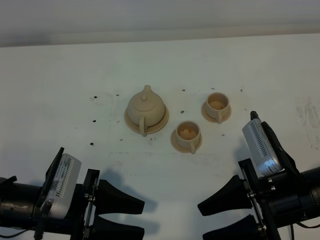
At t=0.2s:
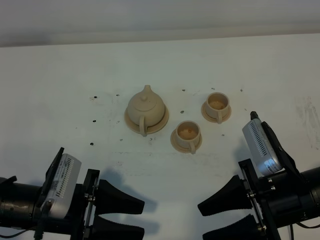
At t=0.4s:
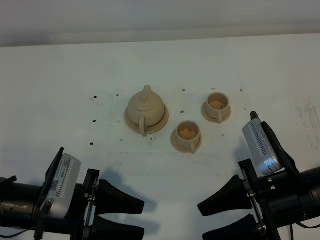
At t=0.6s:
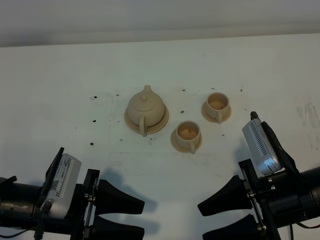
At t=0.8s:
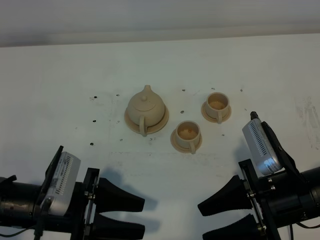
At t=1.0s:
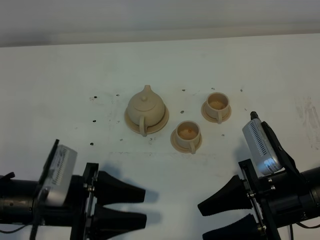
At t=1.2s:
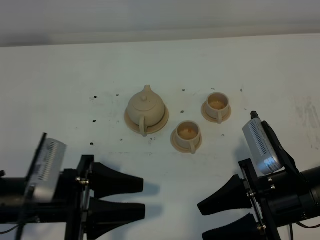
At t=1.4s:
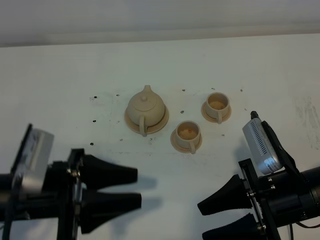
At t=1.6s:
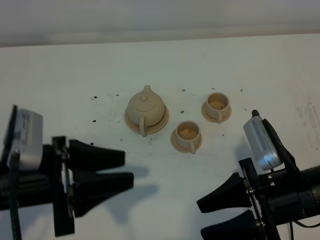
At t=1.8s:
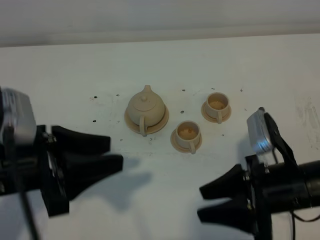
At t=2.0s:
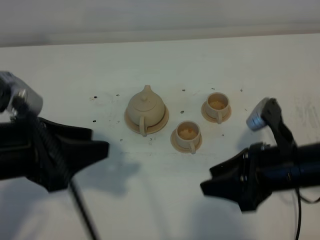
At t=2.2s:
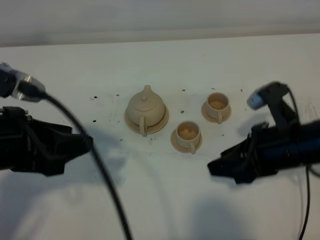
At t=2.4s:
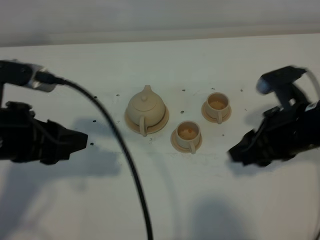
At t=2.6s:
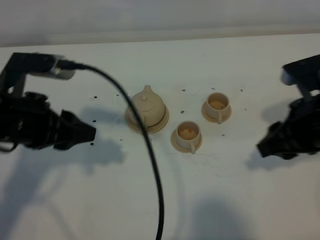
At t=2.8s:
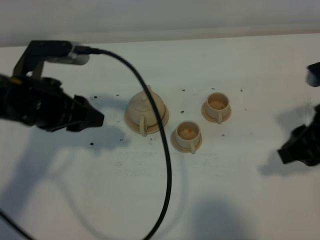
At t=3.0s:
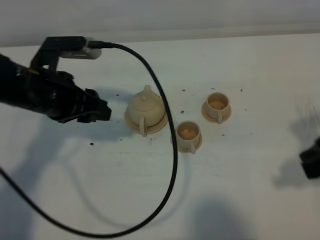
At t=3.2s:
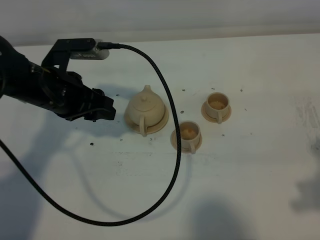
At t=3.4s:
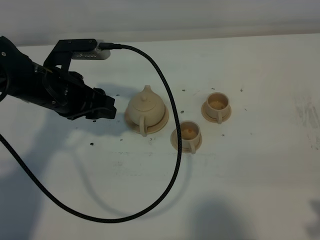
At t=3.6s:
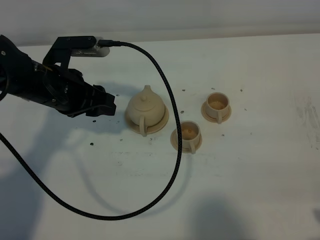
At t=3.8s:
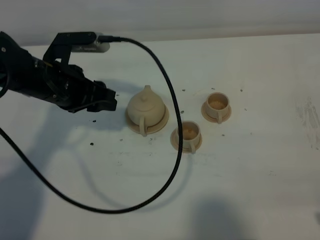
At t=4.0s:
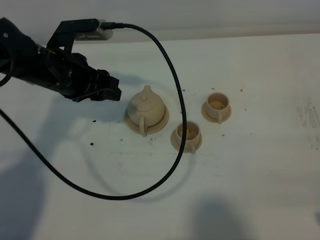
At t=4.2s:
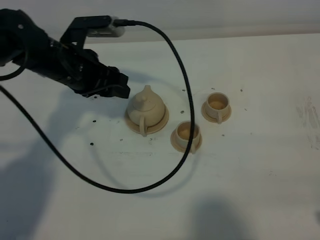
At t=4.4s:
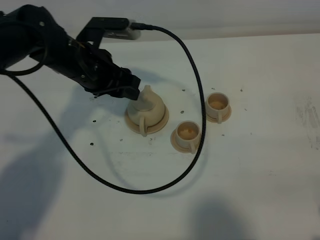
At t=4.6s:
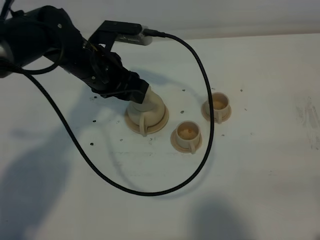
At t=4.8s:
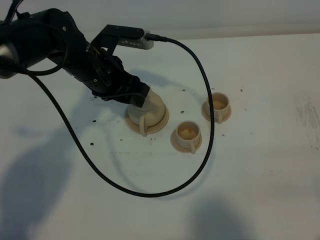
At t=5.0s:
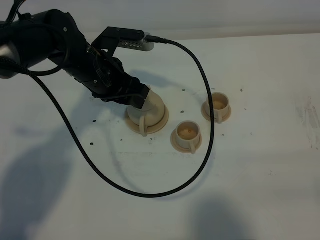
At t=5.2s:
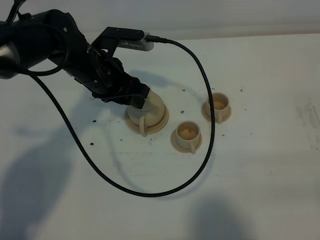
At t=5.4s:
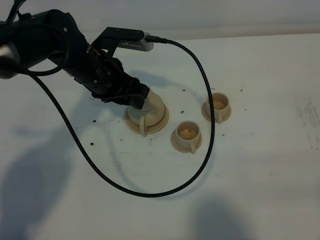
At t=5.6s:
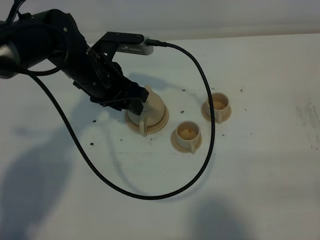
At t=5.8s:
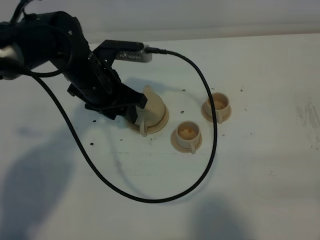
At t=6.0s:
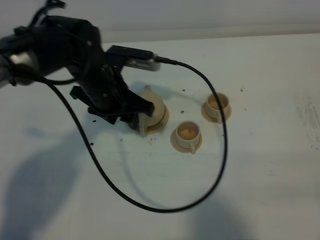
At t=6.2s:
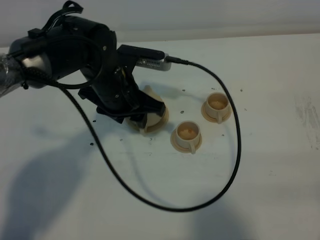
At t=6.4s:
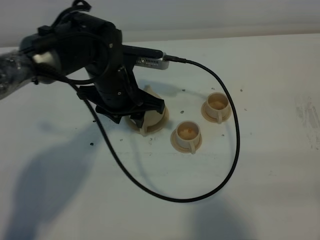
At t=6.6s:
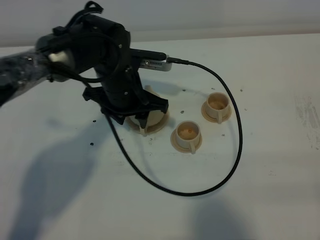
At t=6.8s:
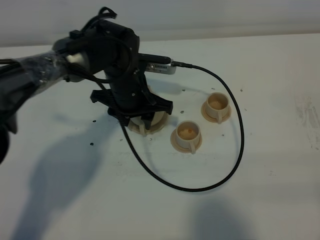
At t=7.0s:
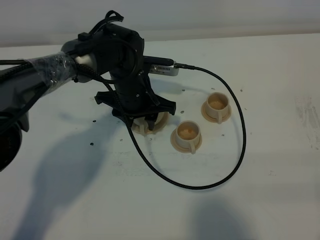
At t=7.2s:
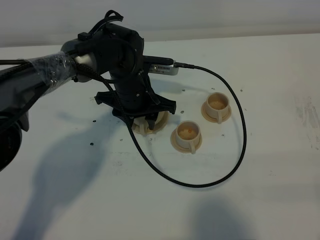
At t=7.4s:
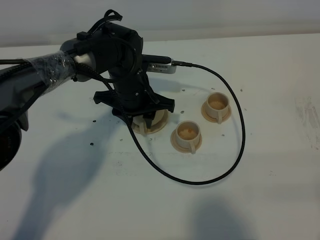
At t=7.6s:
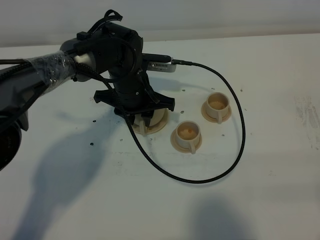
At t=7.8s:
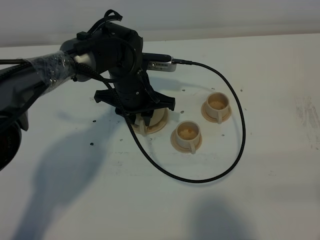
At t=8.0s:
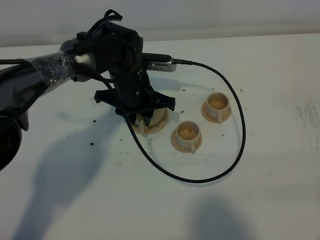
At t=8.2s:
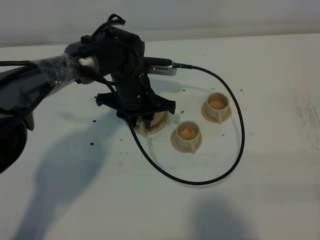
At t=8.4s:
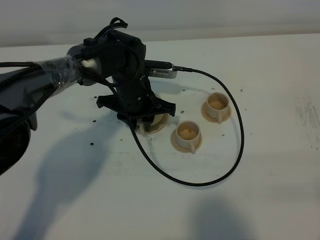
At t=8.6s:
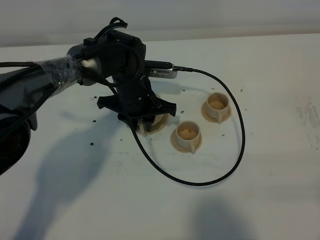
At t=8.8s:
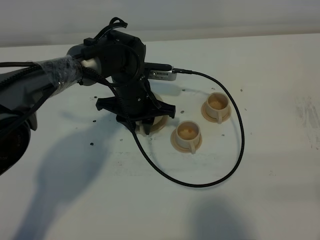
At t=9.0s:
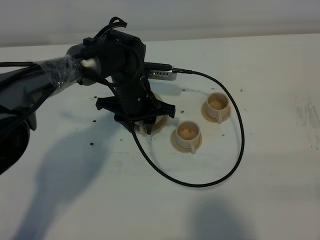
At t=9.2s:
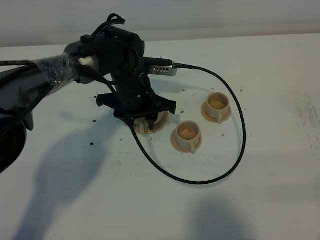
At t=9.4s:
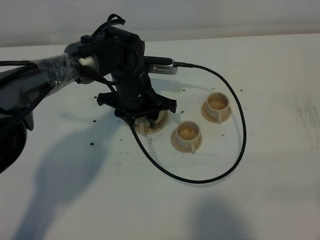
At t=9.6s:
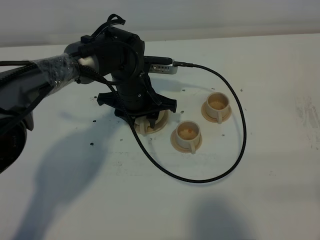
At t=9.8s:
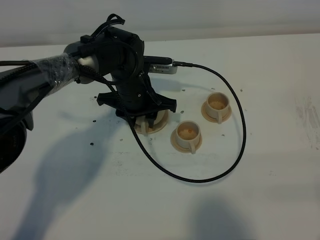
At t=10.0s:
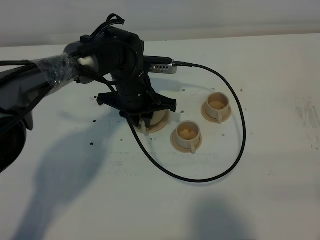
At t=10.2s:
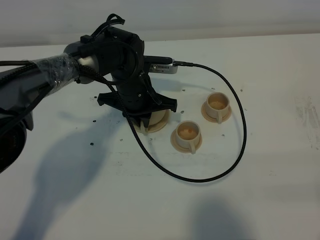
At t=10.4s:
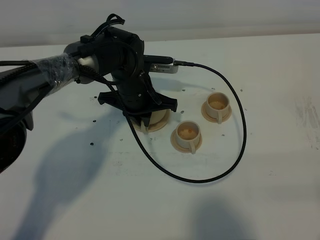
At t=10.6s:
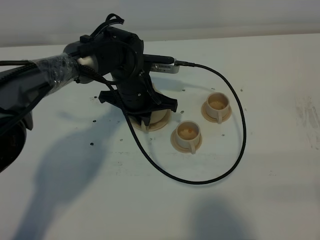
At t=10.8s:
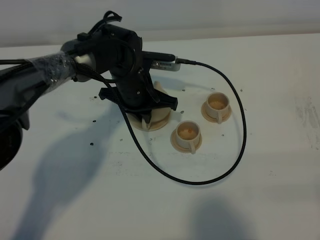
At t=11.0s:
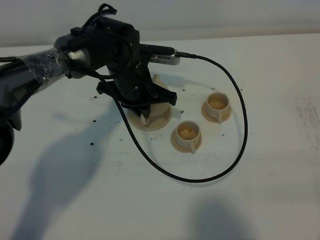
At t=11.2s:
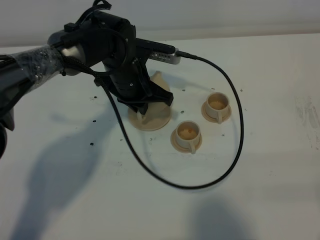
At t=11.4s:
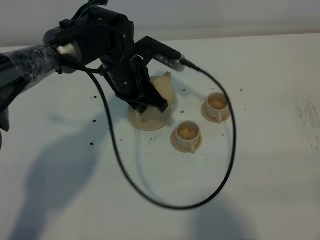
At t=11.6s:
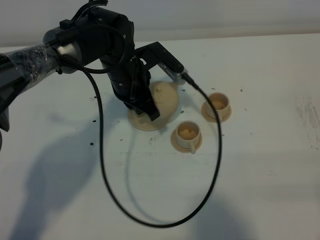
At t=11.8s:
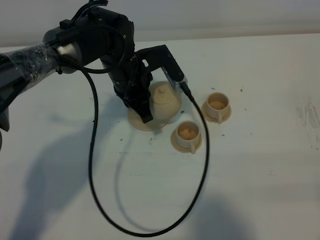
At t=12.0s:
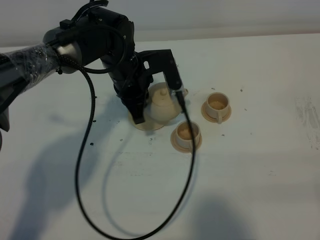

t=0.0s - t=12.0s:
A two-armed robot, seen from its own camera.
Task of the whole recording: grasp the brown teapot and pour the tea into the two brown teacups one by one, put the brown teapot back in its original place.
Step, t=0.0s - t=11.0s: Pick up the teapot with the left gripper.
t=0.0s - t=1.6s: The left gripper is displaced upward by approximately 10 cm.
t=1.6s - t=3.0s: The left gripper moves forward, roughly 15 cm. The right gripper is displaced upward and to the right by about 15 cm.
t=3.0s - t=4.4s: The left gripper shifts some 10 cm forward and to the right. The right gripper shifts roughly 10 cm backward.
t=4.4s - t=6.0s: The left gripper moves some 5 cm. Meanwhile the right gripper closes its fingers.
t=6.0s - t=7.6s: The left gripper travels downward by approximately 5 cm.
t=7.6s - t=9.0s: The grippers stay close to where they were, moving slightly.
t=9.0s - t=10.4s: The left gripper closes its fingers.

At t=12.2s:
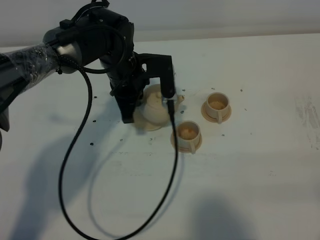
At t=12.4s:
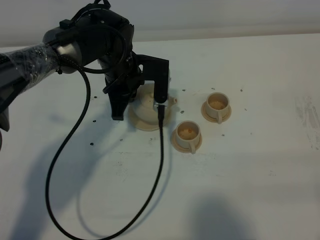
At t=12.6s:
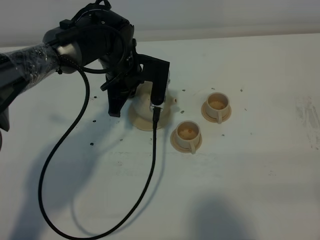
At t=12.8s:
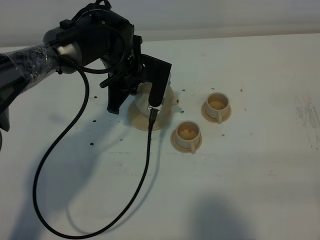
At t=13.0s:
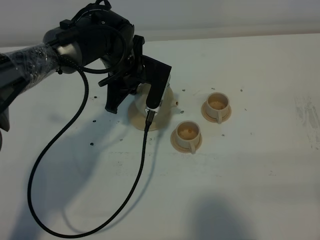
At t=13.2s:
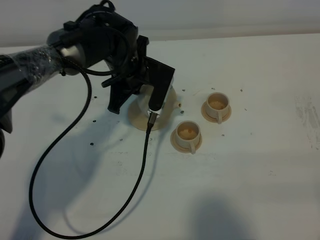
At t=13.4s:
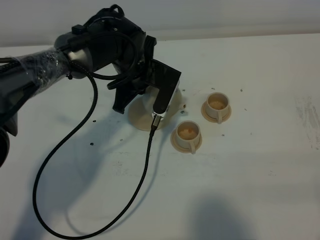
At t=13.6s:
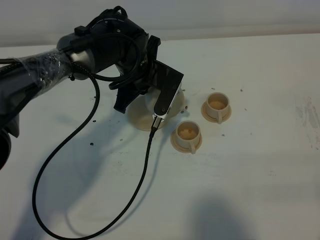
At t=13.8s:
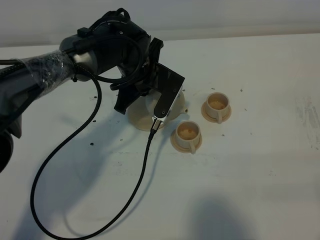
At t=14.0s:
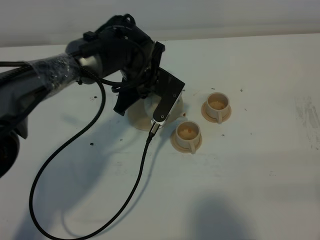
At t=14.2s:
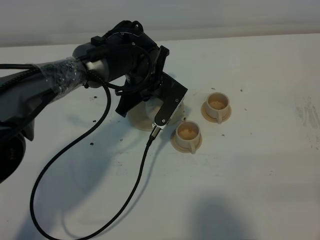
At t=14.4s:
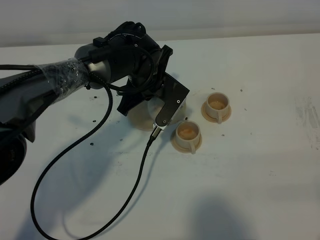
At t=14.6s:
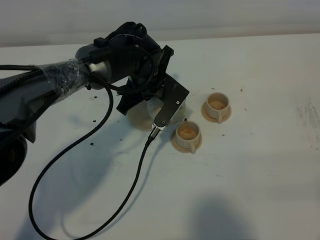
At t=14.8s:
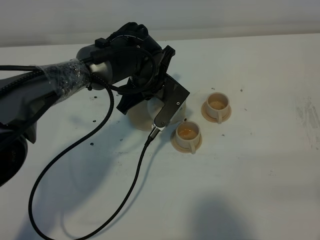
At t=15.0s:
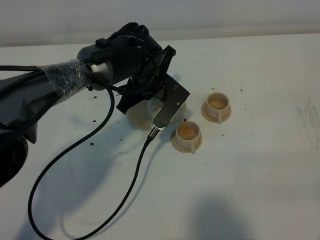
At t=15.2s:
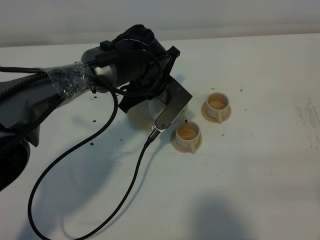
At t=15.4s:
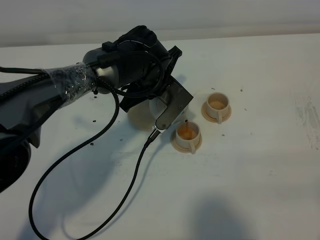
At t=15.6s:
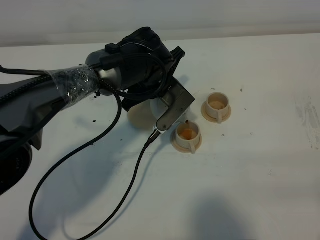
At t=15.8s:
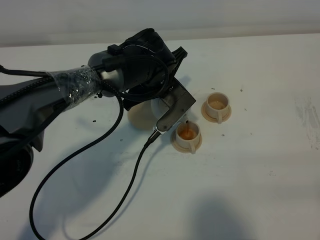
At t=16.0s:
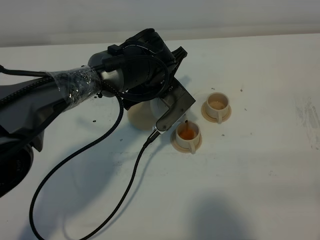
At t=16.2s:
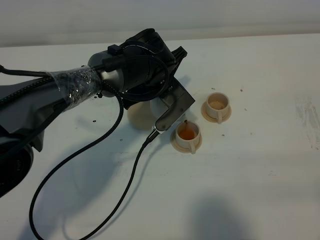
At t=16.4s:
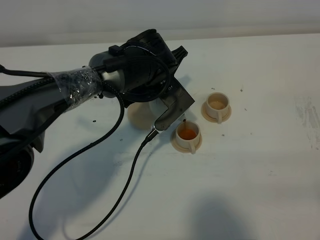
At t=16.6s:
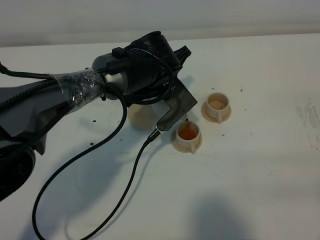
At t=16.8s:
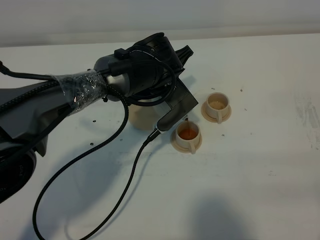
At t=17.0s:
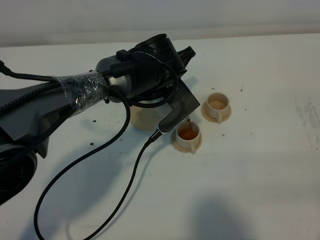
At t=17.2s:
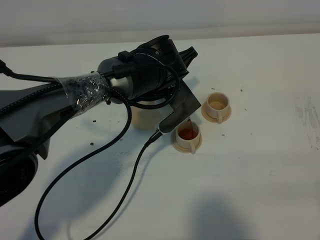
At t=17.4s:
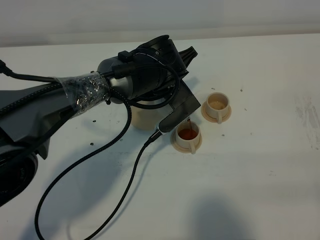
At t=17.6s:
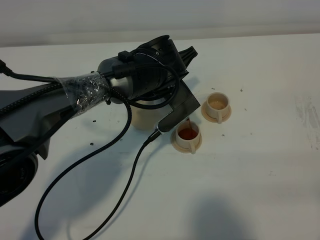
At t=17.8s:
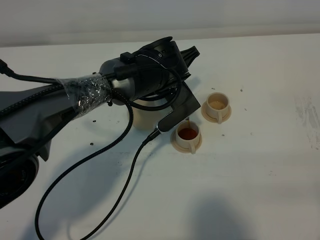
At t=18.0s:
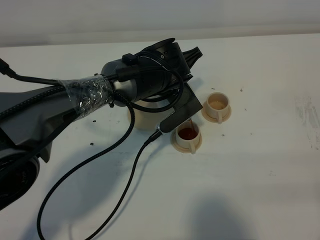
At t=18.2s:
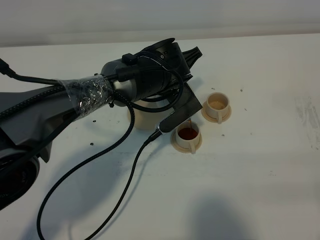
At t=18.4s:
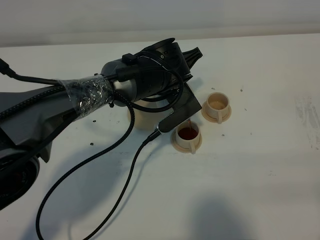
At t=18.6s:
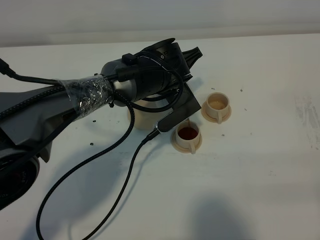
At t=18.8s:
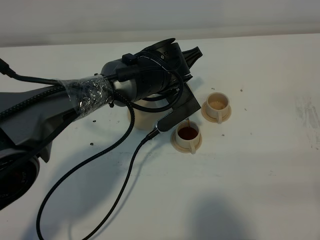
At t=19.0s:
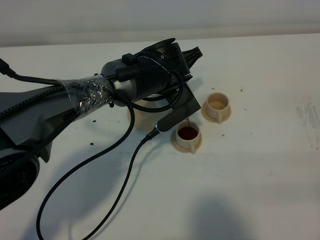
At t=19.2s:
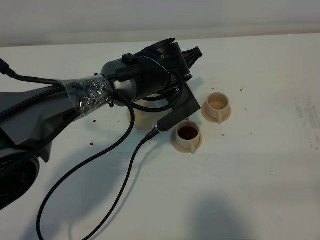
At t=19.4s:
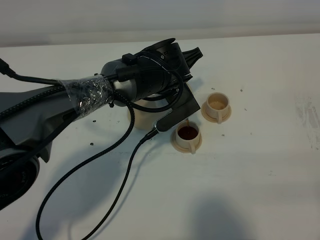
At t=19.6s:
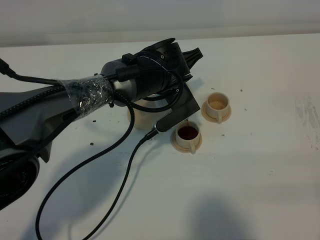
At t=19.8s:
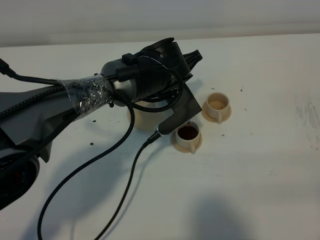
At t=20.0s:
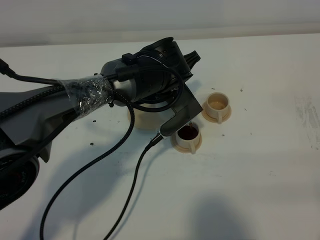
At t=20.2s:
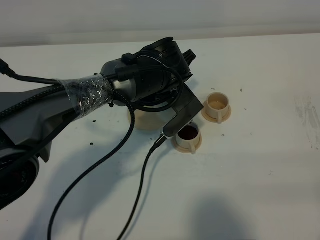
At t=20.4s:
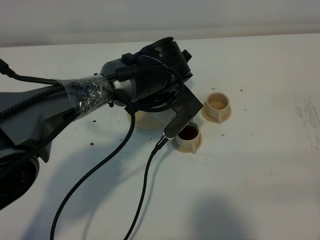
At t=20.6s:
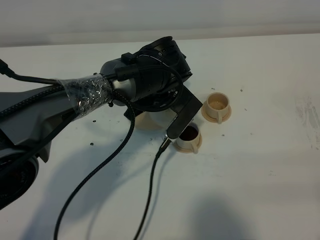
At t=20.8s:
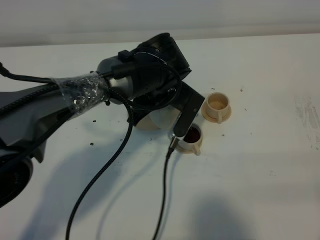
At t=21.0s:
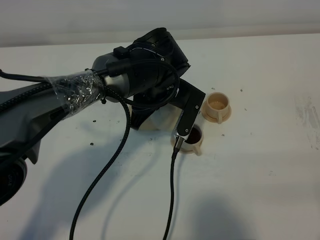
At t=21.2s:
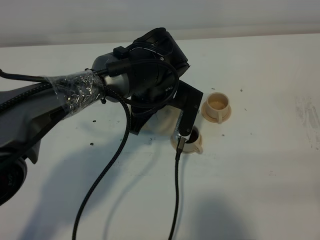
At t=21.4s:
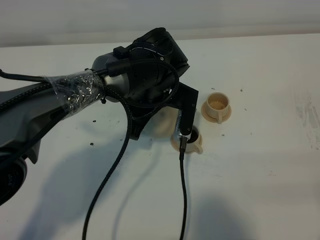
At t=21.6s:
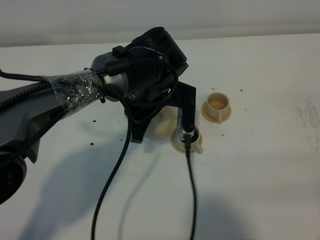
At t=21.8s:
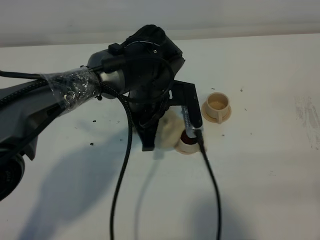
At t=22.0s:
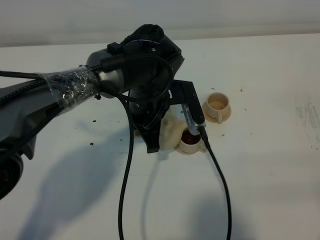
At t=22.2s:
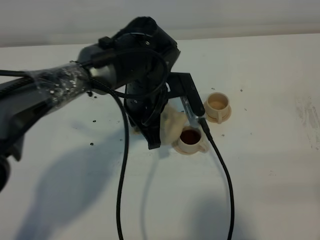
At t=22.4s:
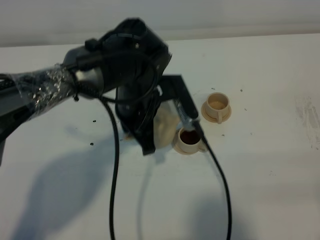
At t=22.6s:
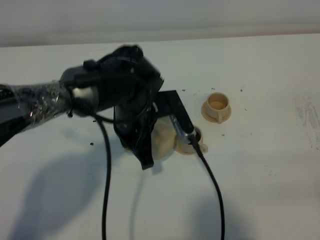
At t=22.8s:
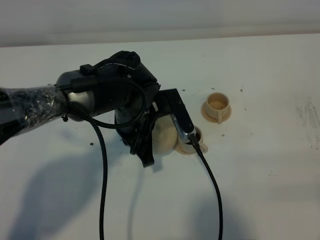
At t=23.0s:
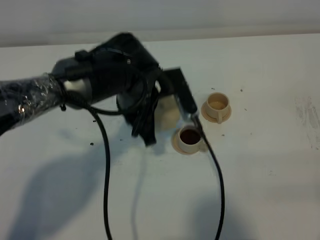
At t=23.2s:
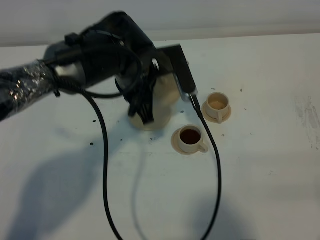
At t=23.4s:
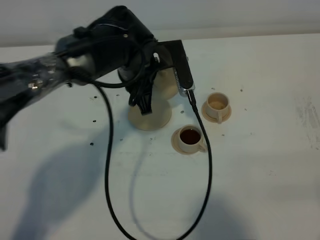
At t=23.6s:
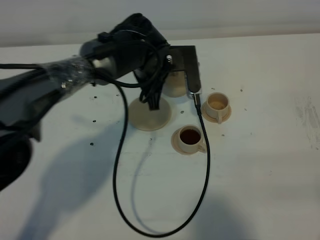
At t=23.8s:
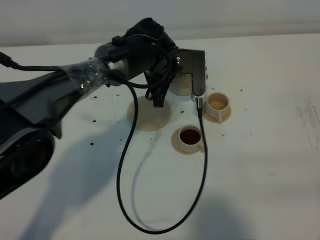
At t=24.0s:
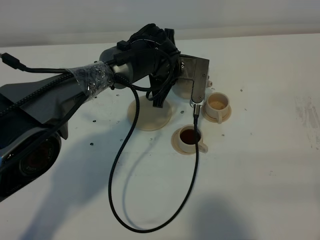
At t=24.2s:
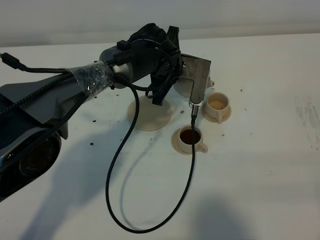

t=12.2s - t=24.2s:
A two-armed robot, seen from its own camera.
Task of the whole recording: grasp the brown teapot and pour the tea into the two brown teacups one by one, put the brown teapot back in its original place.
t=13.8s - t=15.2s: The grippers stay close to where they were, moving slightly.
t=15.2s - t=18.2s: The grippers stay close to where they were, moving slightly.
t=18.2s - t=19.8s: The two grippers keep their place.
t=21.2s - t=22.6s: The left gripper ends up approximately 5 cm from where it was.
t=22.6s - t=24.2s: The left gripper goes roughly 10 cm forward.
